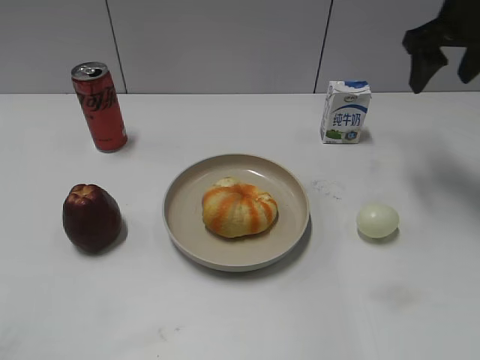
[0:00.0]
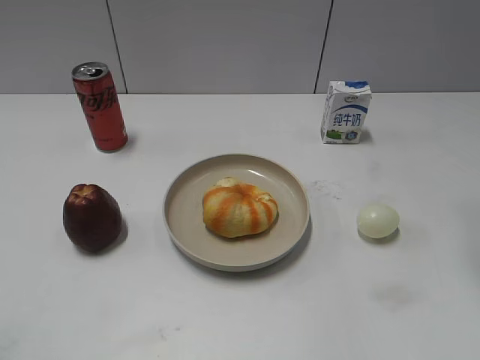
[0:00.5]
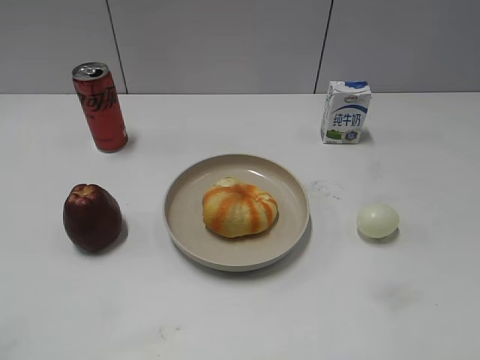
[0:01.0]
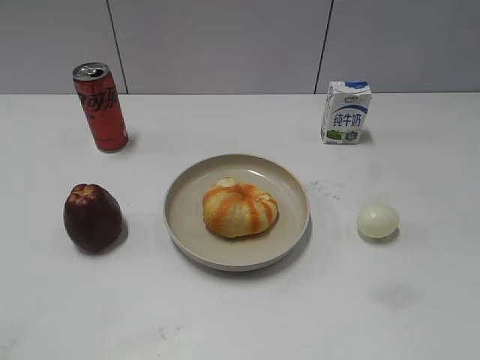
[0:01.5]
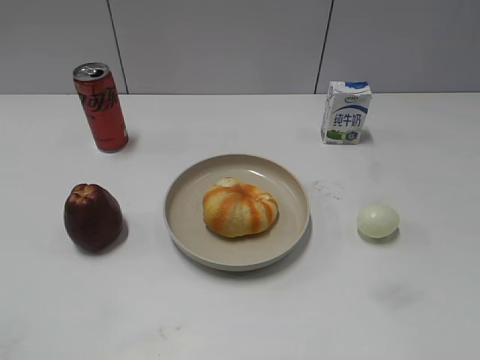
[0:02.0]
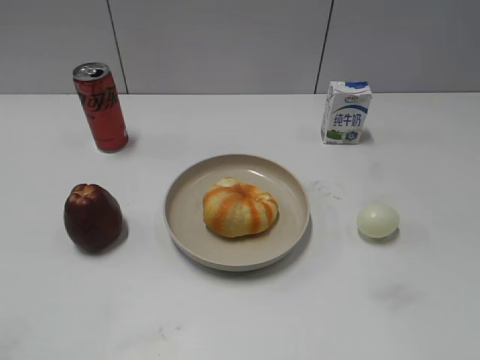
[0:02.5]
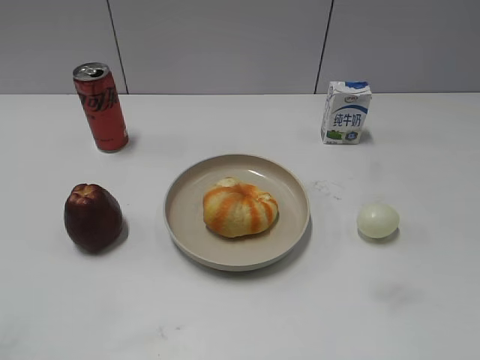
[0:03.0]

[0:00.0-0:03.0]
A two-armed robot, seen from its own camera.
0:00.0 to 0:01.5: The right gripper goes about 40 cm backward.

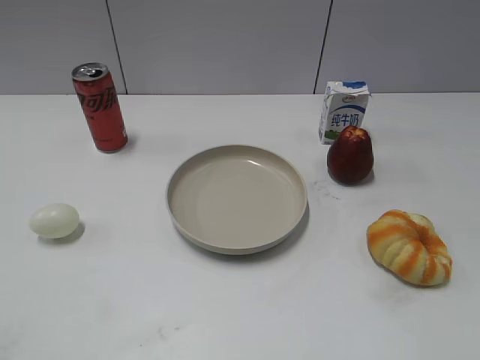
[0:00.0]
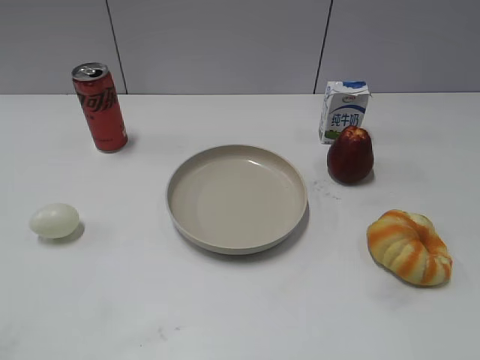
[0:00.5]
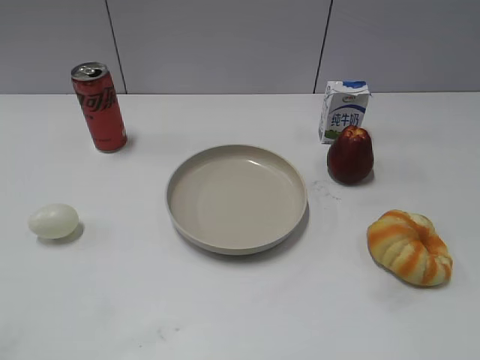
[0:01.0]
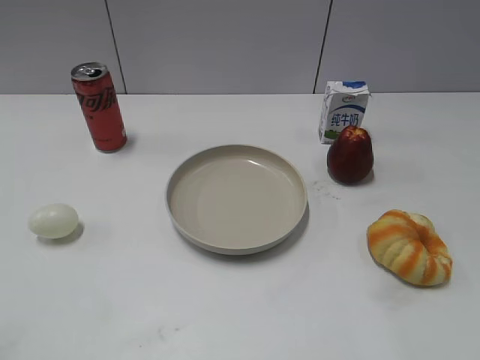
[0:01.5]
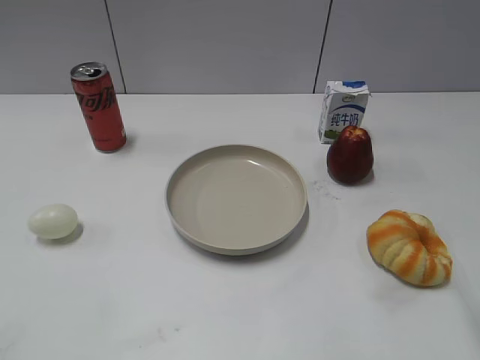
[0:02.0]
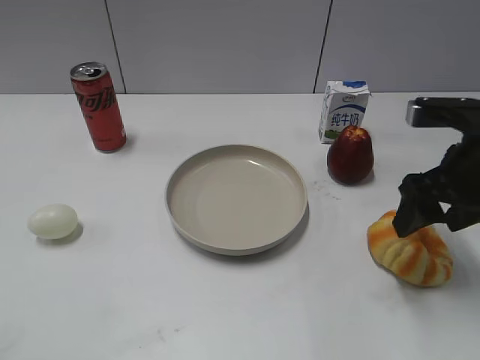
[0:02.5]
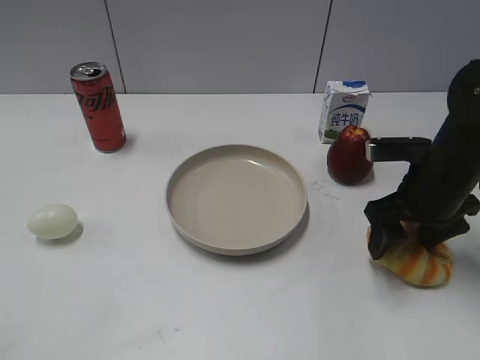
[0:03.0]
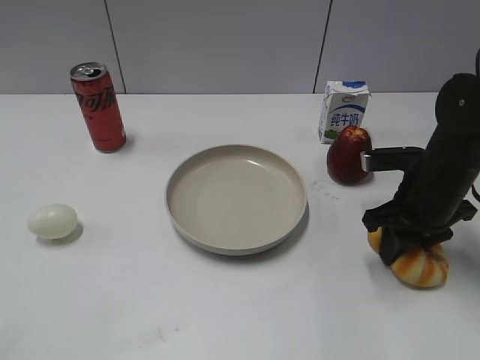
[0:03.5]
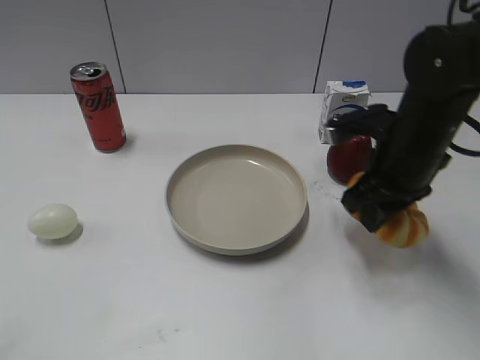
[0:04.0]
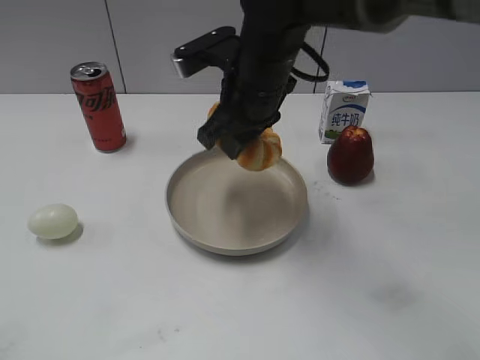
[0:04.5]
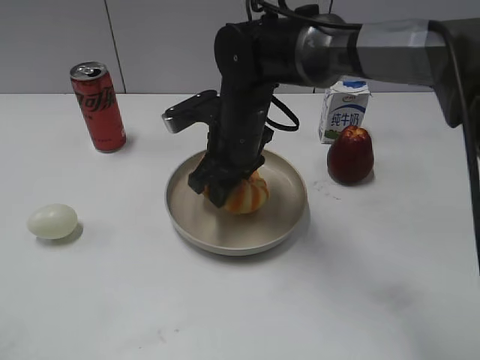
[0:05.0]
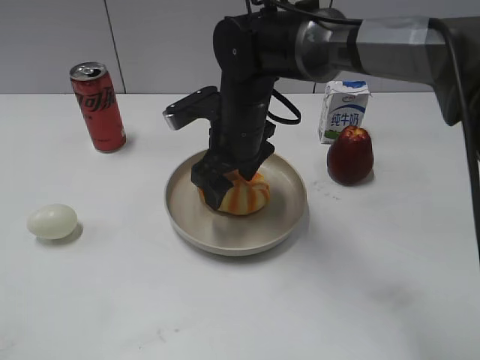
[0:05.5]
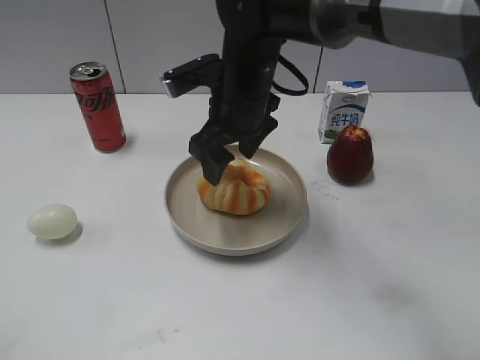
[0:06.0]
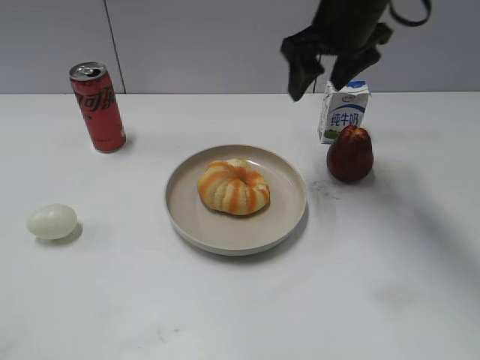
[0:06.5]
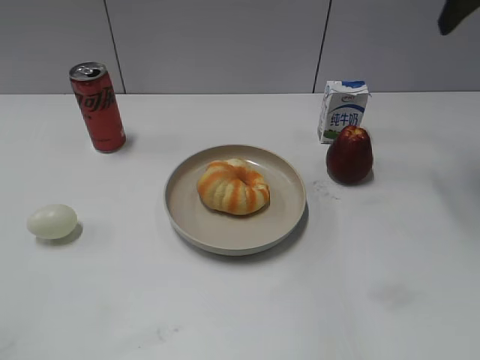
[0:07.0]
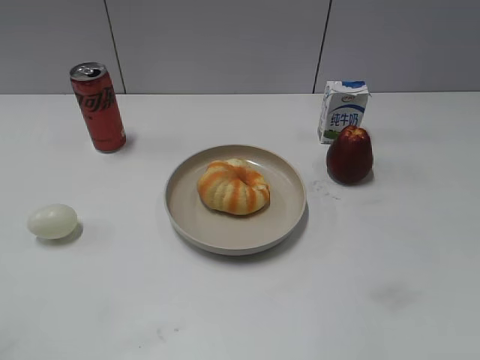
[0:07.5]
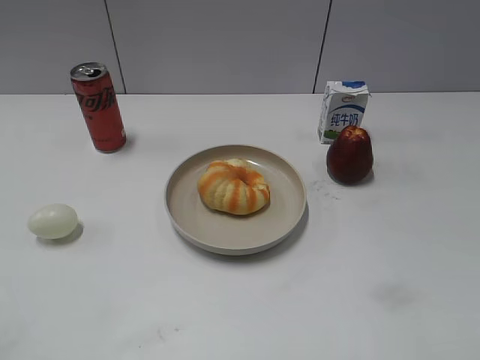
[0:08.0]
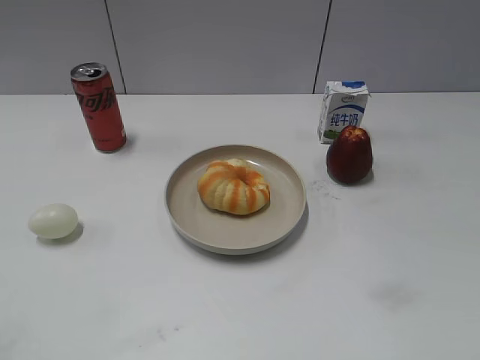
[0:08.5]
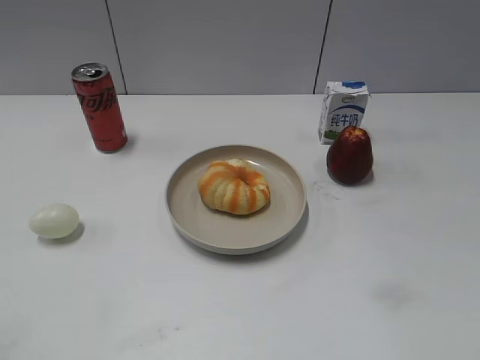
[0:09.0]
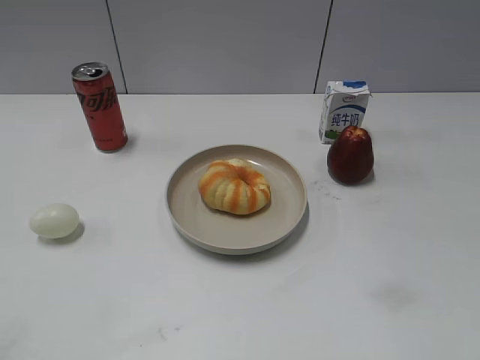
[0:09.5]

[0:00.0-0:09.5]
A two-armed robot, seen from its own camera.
Step, 0:01.0 to 0:03.5: Grasp the round bread with right gripper.
Step, 0:04.0 to 0:06.0: Place the round bread on the plate with right gripper.
0:02.0 to 0:04.0: The right gripper travels forward, downward and to the left by some 20 cm, and closes.
0:04.0 to 0:05.5: The right gripper moves to the left, about 15 cm, and opens up.
0:05.5 to 0:07.5: The right gripper shifts roughly 40 cm to the right and upward.
